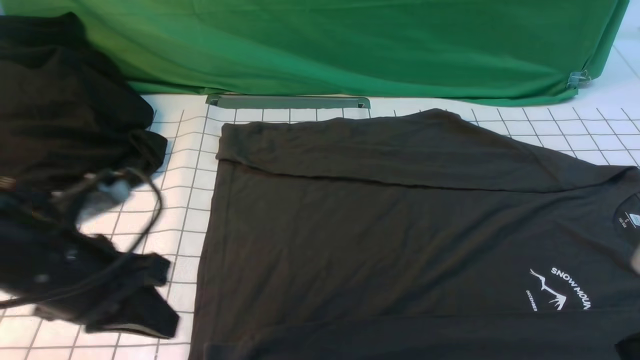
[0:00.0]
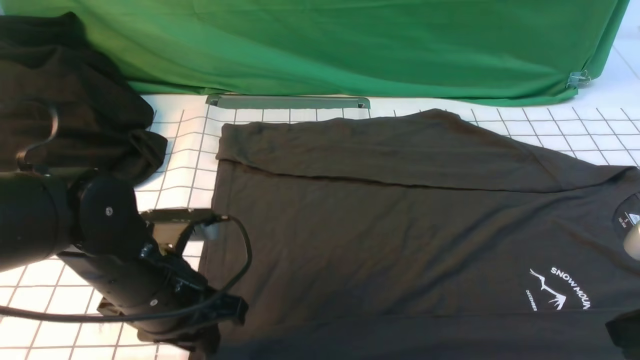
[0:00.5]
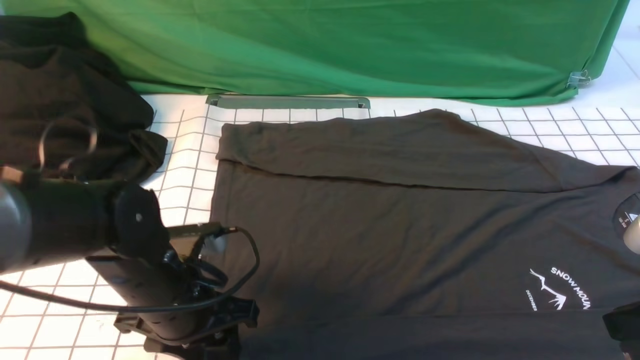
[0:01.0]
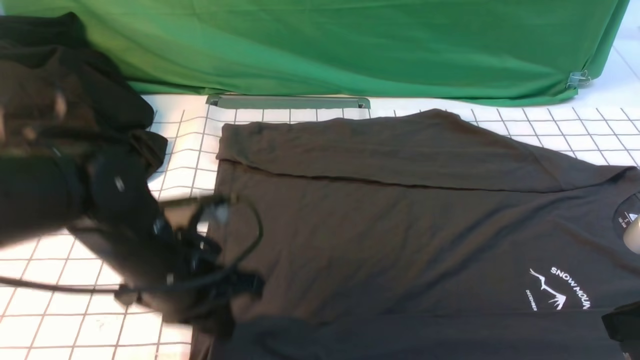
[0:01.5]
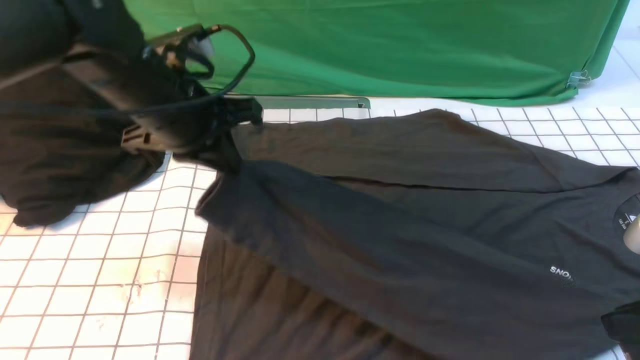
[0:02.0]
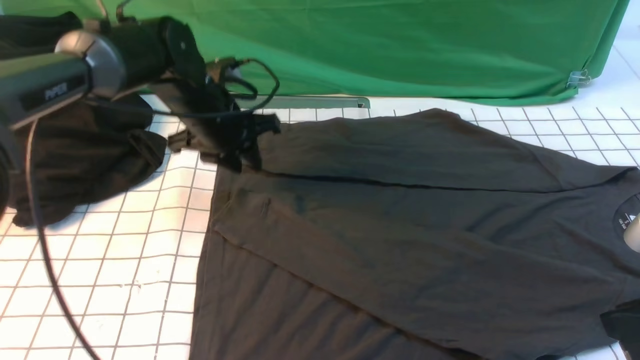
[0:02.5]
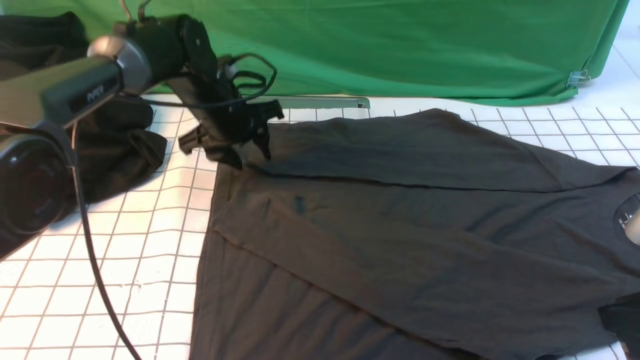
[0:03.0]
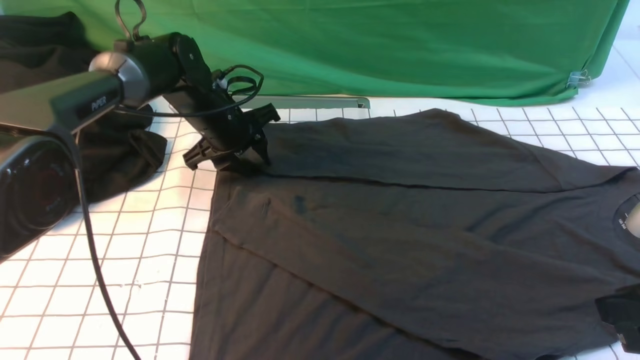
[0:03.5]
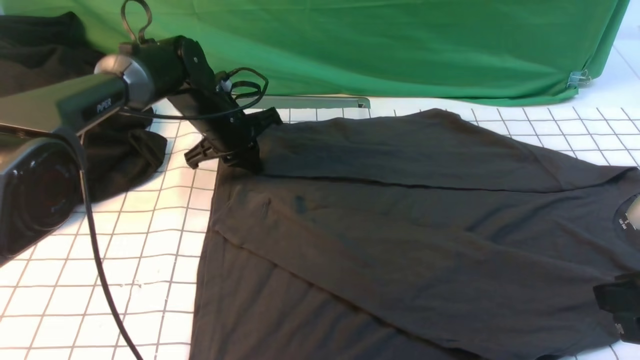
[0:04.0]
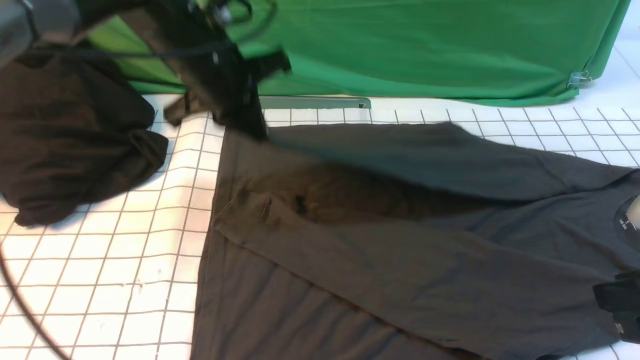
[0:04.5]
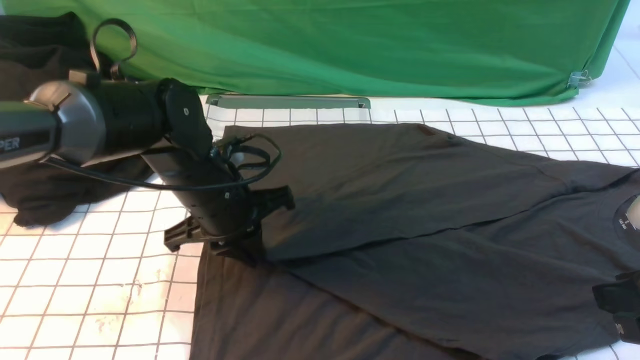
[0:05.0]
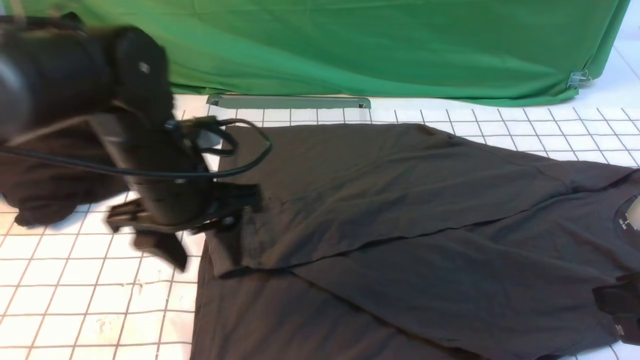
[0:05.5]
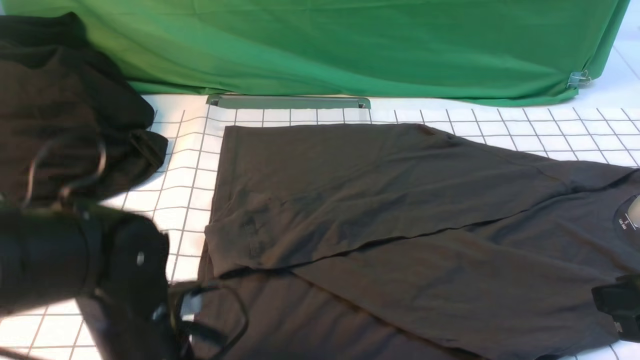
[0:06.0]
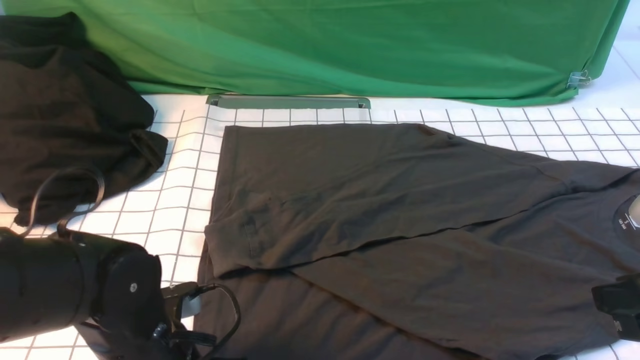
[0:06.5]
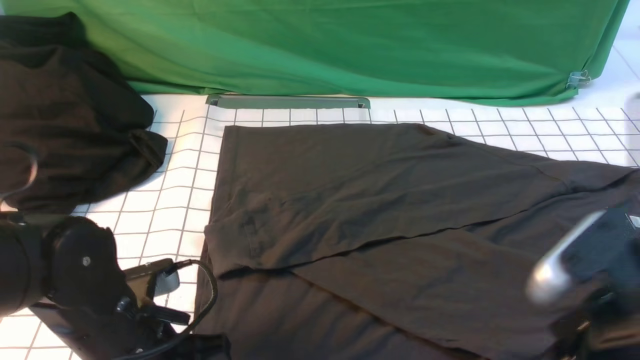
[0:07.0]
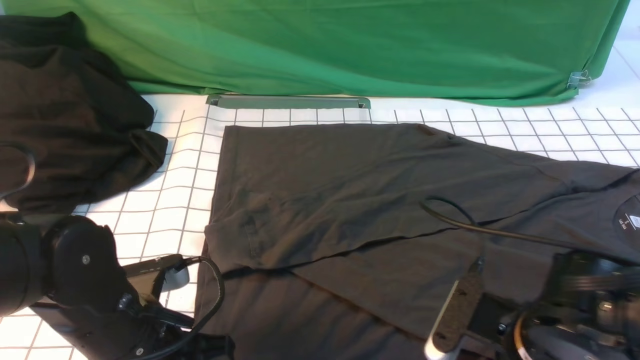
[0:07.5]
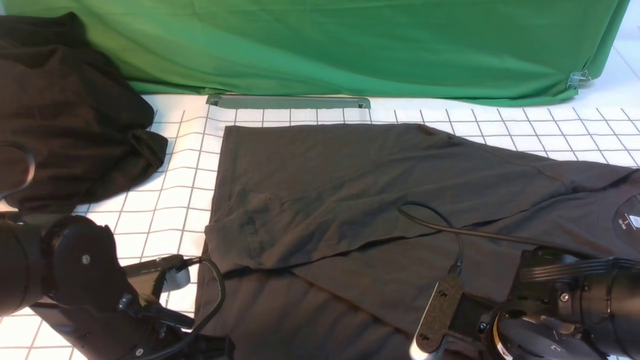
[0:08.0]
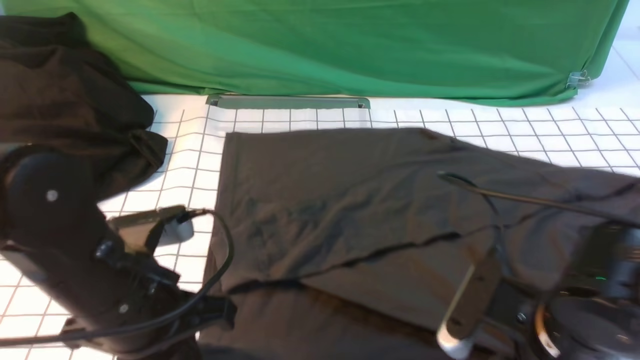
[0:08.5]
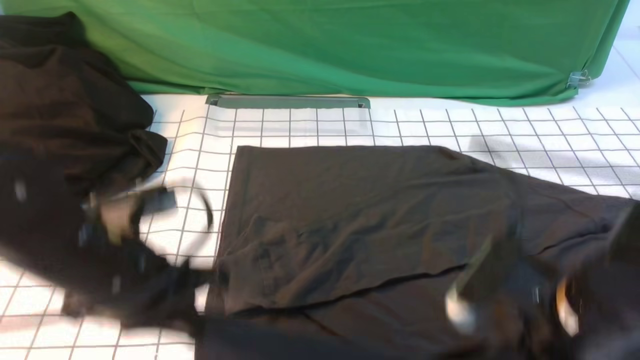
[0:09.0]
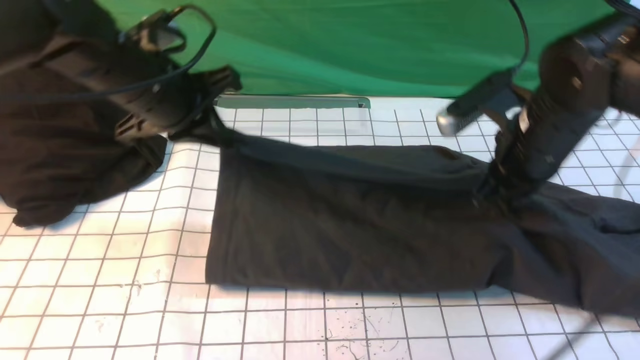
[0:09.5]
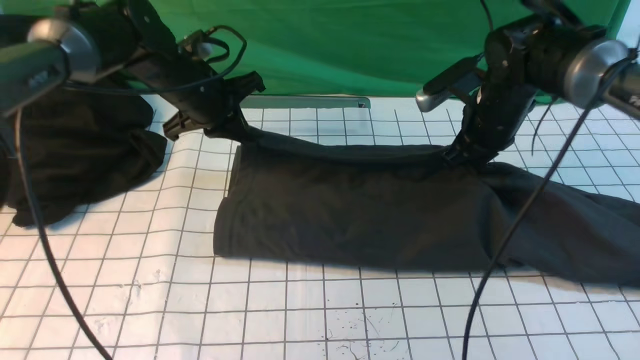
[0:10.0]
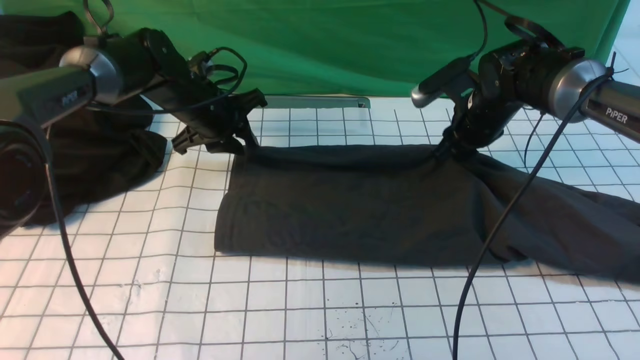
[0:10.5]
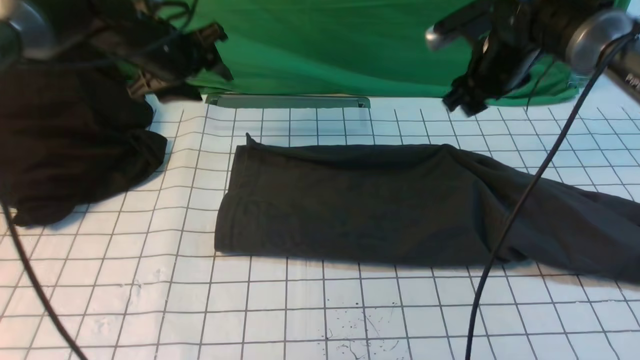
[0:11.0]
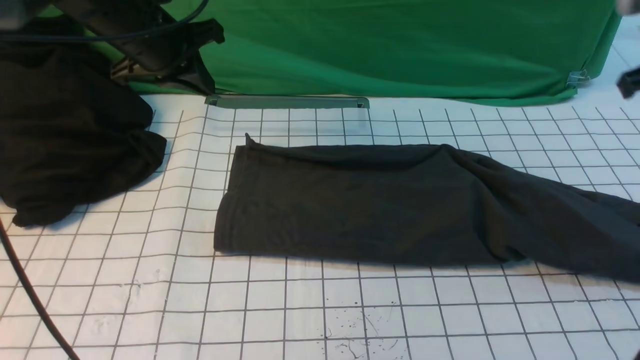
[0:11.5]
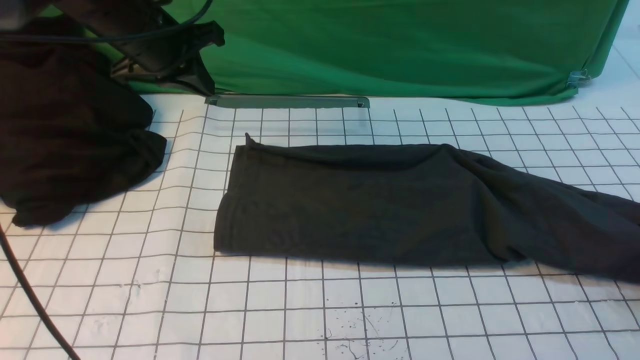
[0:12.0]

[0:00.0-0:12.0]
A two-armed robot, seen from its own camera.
Step, 0:01.5 to 0:02.0: use the left arm to drag and place the cuff at the centered position on the left edge of the fabric.
Step, 0:02.5 to 0:03.5: use the left arm to clamp the cuff farthest from it.
Step, 0:04.0 to 0:05.0: use the left arm to drag and drop the cuff onto the cuff closest to the left arm.
Step, 0:05.5 to 0:08.0: use the left arm to clamp the cuff farthest from it.
Step, 0:08.5 to 0:10.5: use both arms to drag the lower edge of the fabric forward and fold it over the upper edge.
0:00.0 to 0:02.0: The left gripper is displaced forward by approximately 15 cm, and opens, then closes once more.
0:02.0 to 0:04.0: The left gripper goes some 15 cm forward and downward, and opens and closes again.
0:04.0 to 0:06.0: The left gripper goes approximately 30 cm backward, and opens.
0:06.0 to 0:08.0: The left gripper closes its fingers. The right gripper goes about 20 cm downward and to the left, and opens, then closes once more.
0:08.0 to 0:10.0: Both grippers move forward, about 25 cm. The right gripper closes its fingers.
0:10.0 to 0:12.0: The right gripper travels to the right and backward by roughly 30 cm, and opens its fingers. Meanwhile the left gripper shifts approximately 10 cm upward, and opens, then closes again.

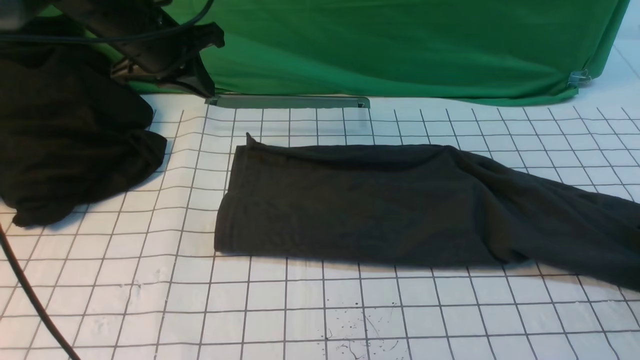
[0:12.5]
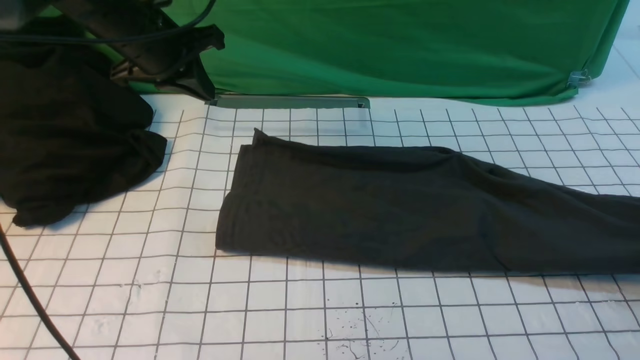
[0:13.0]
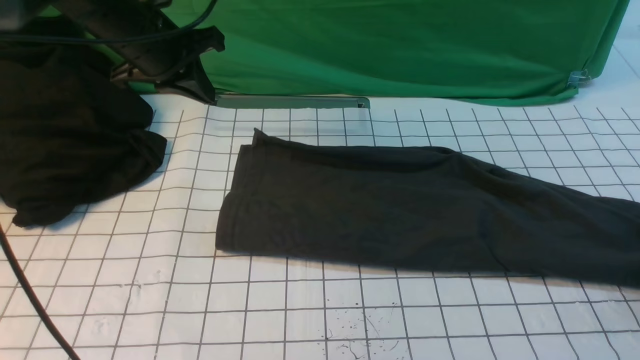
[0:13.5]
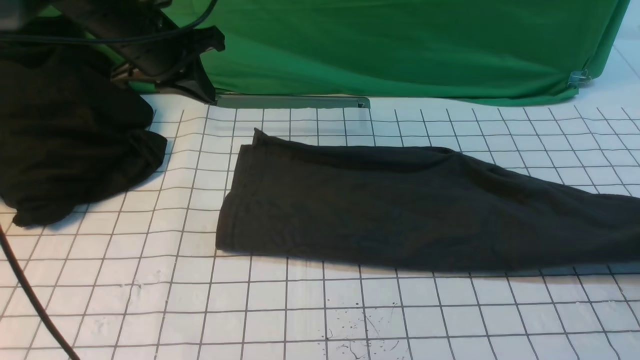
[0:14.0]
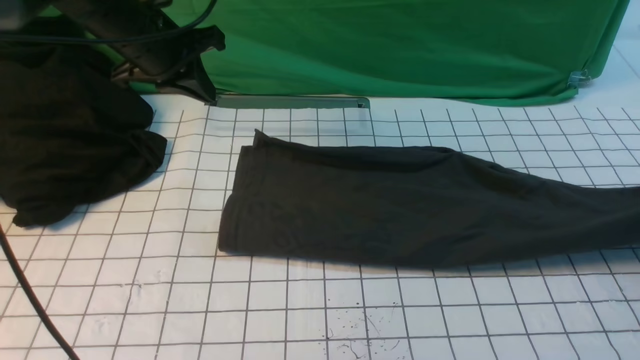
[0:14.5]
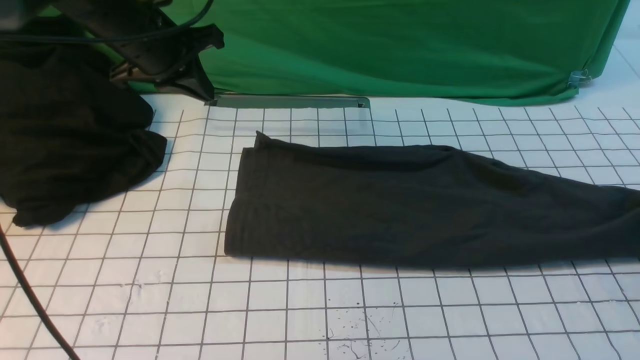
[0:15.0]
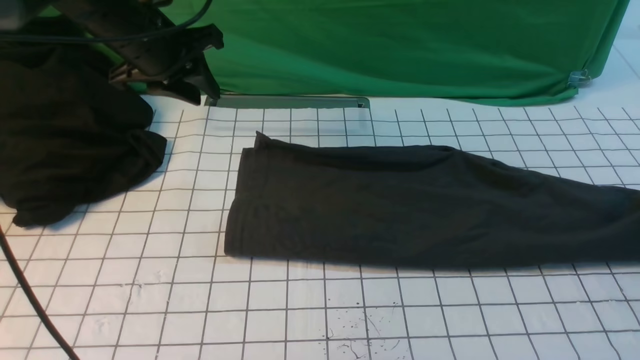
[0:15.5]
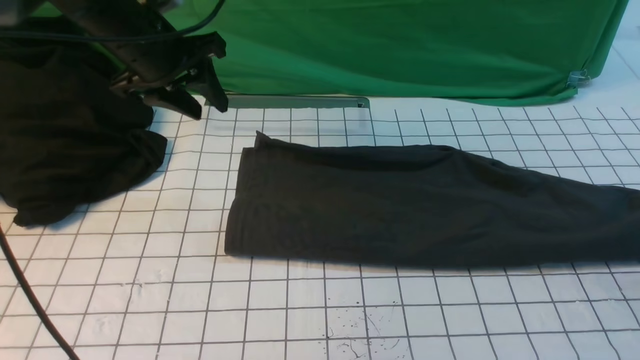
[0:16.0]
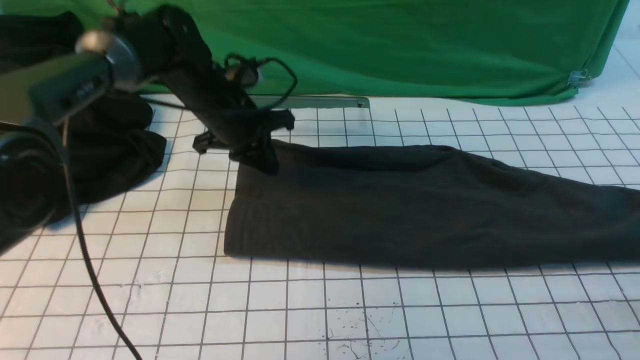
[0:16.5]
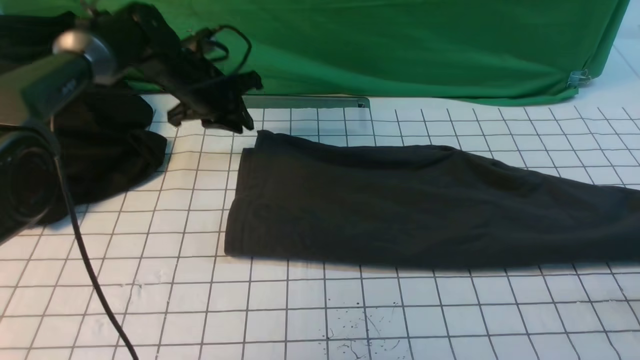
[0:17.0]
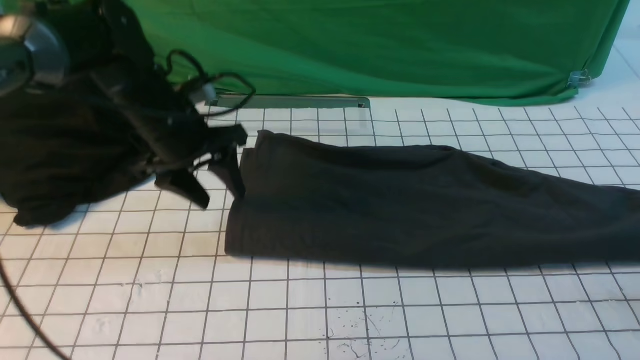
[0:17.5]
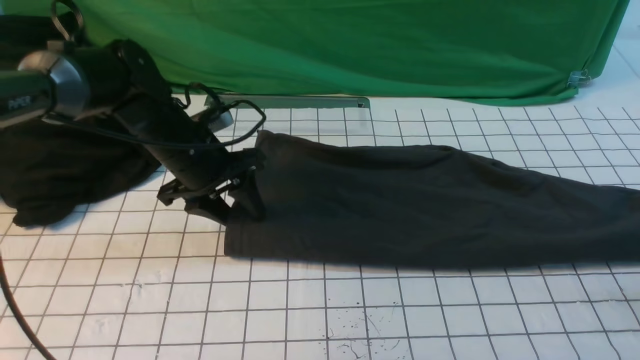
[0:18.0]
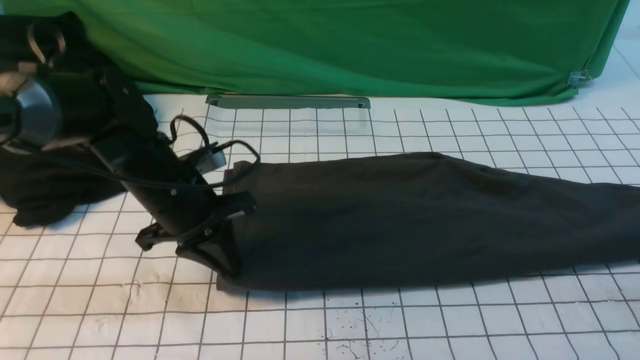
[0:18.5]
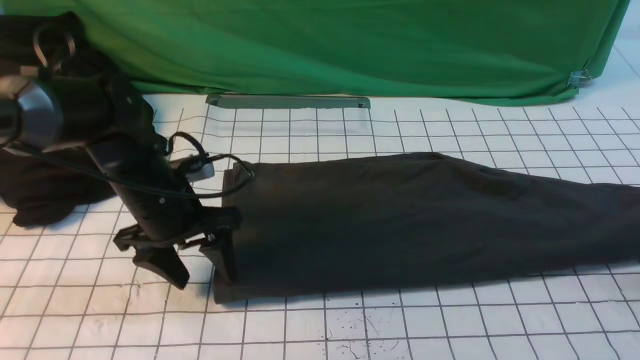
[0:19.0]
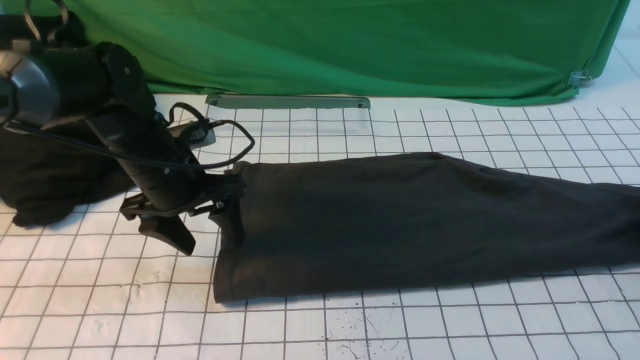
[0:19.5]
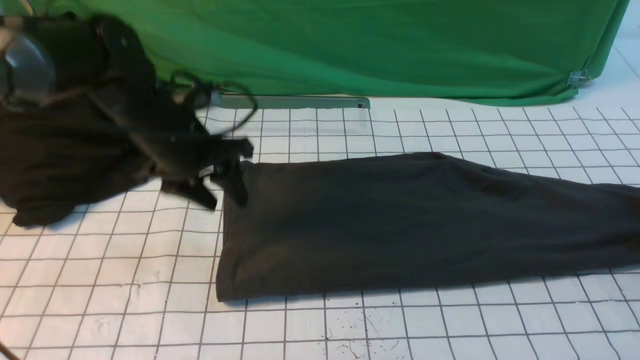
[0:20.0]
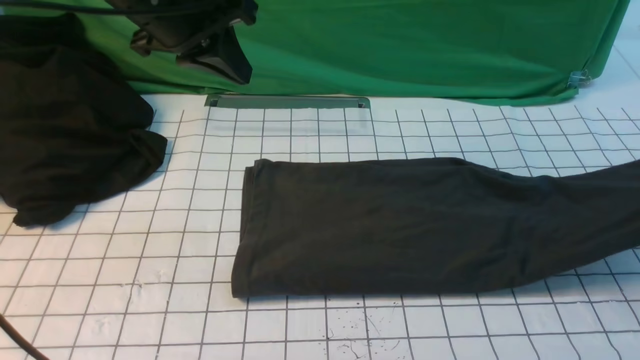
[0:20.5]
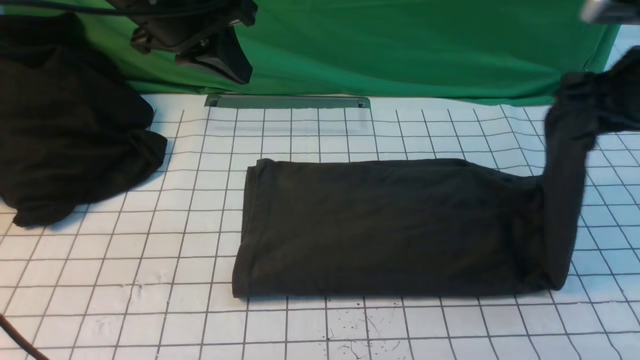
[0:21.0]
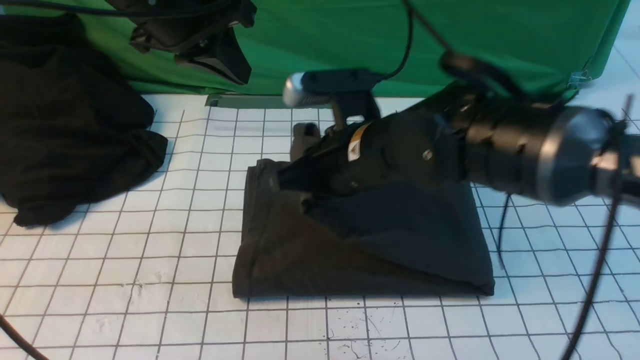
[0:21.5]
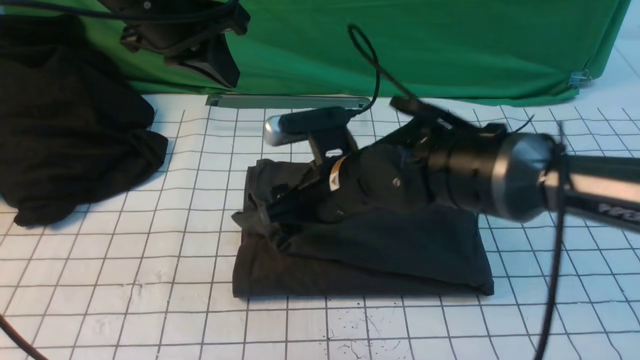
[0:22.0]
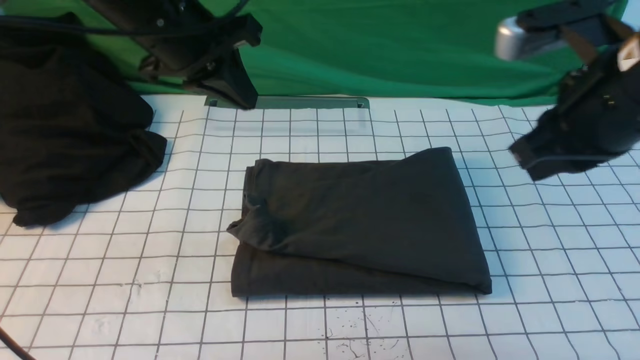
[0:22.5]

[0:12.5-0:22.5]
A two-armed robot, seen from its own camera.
Step, 0:12.5 to 0:19.5: use the right arm to clamp the right edge of the fabric.
Step, 0:20.0 to 0:22.0: use the right arm to drag the right edge of the fabric to the left and folds it over the left edge.
0:12.5 to 0:14.5: The right gripper moves upward, about 5 cm.
0:14.5 to 0:16.5: The right gripper moves roughly 5 cm upward and comes back, and opens, then closes once more. The left gripper is displaced downward and to the right by some 10 cm, and opens, then closes once more.
0:16.5 to 0:18.5: The left gripper travels backward by approximately 15 cm, and opens and closes again.
0:18.5 to 0:20.5: The left gripper travels upward by approximately 20 cm, and opens, then closes once more, while the right gripper travels downward and back again, some 10 cm each way, and opens, then closes again.
0:20.5 to 0:22.5: The right gripper moves to the left, approximately 25 cm, and opens, then closes again.
